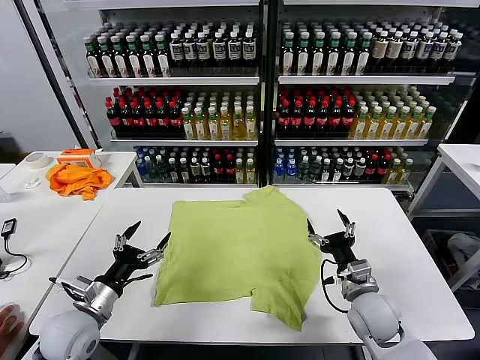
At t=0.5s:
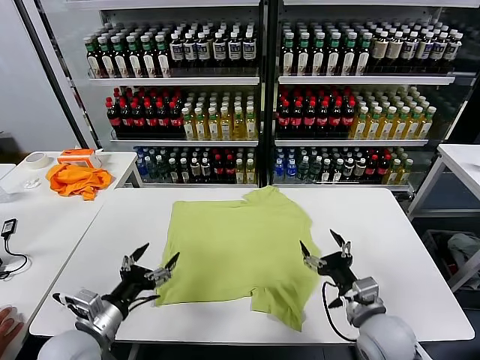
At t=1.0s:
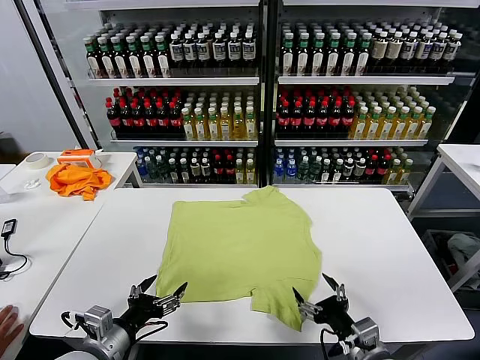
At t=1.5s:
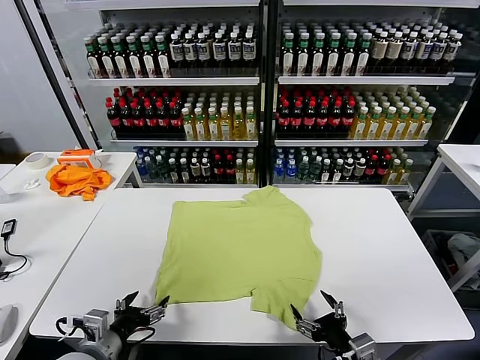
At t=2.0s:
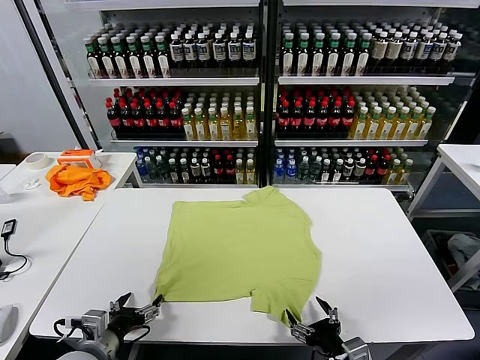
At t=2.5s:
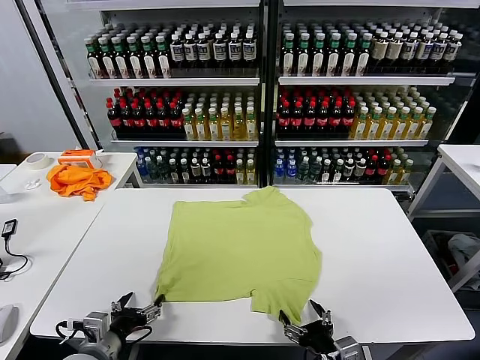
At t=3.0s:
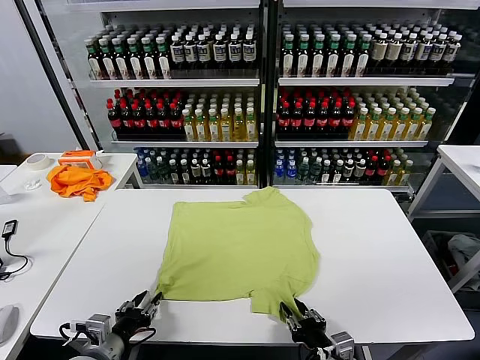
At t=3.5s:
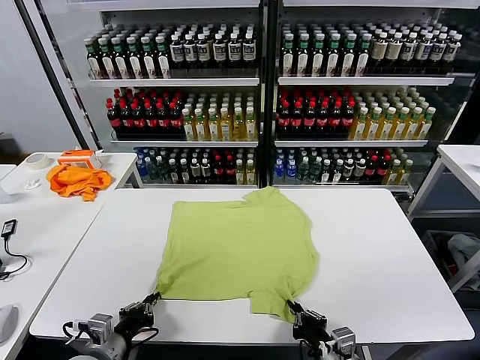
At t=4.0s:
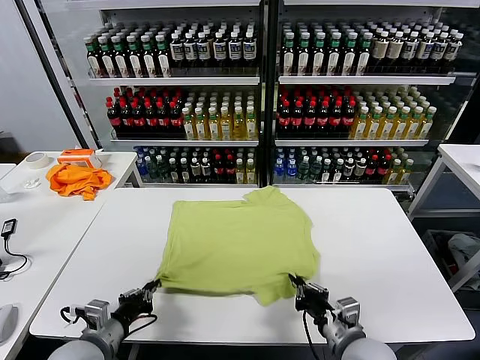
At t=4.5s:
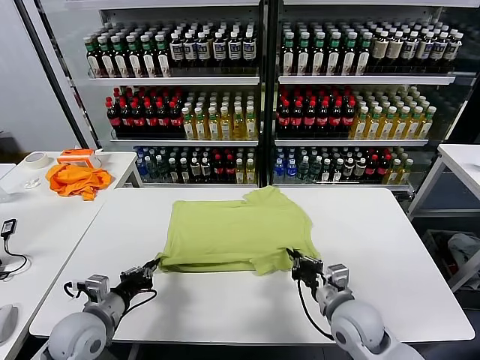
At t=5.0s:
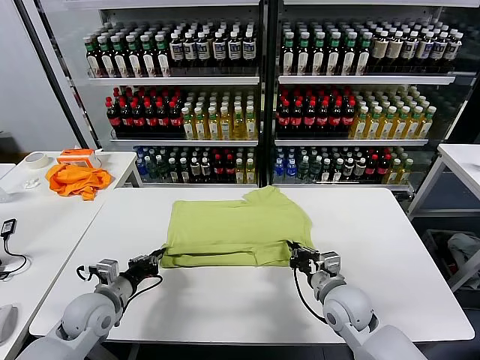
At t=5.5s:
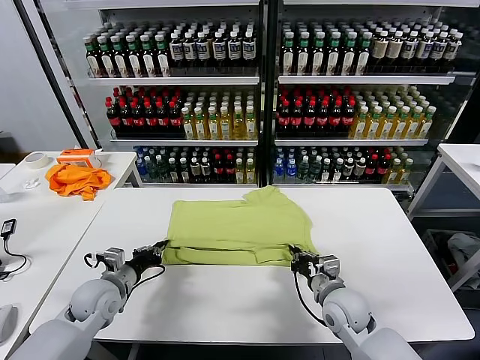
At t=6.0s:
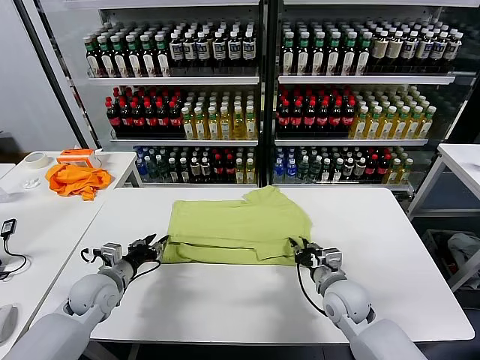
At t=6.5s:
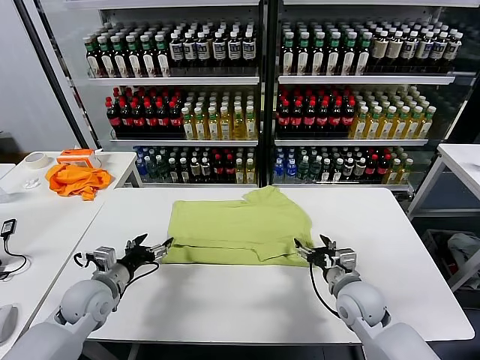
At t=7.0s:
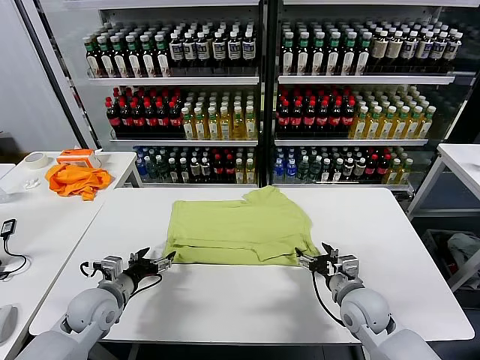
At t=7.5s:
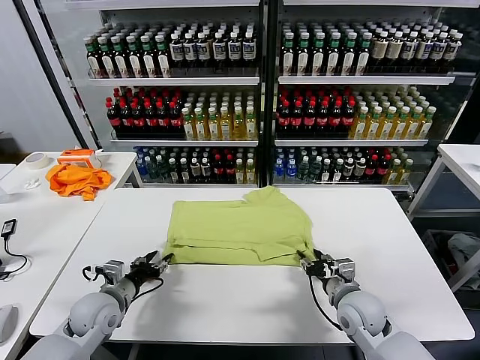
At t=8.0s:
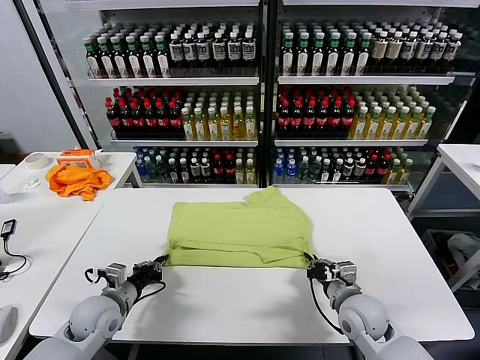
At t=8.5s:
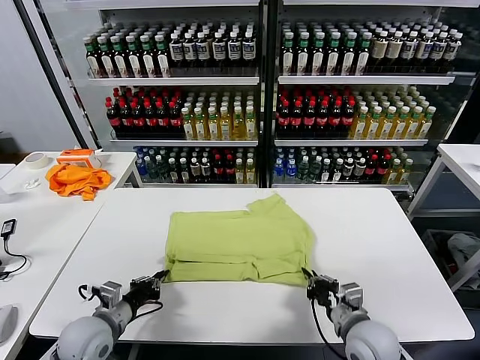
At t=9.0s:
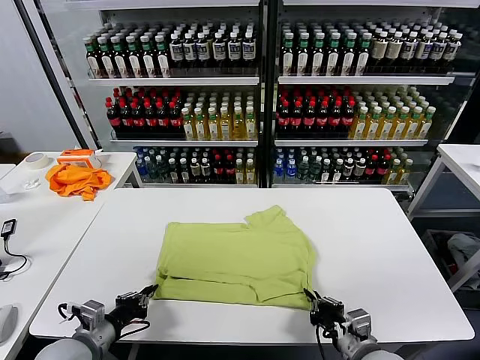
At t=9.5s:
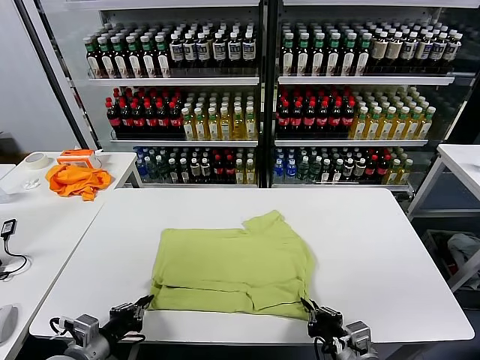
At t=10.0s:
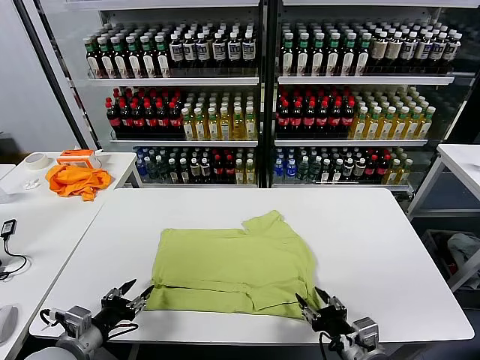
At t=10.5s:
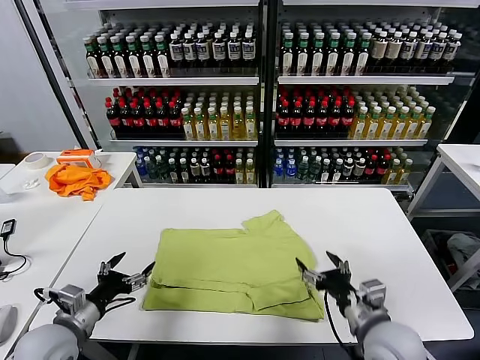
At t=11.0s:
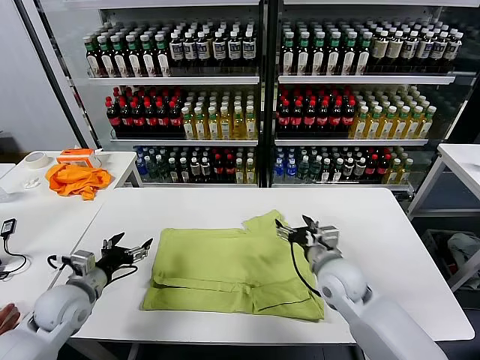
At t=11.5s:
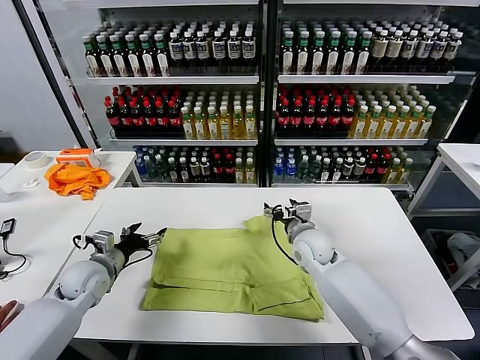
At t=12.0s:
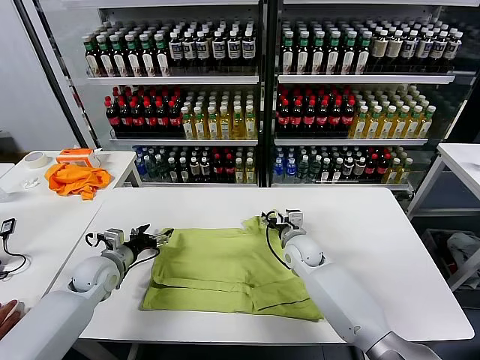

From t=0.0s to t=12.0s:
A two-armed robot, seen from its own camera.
Task of the whole recording: fold and organize the clothes.
Step, from t=0.0s to t=3.0s: use both grippers simultaneously to clamp the lower edge of the clothing fabric.
Step, from t=3.5s to t=6.0s: use both grippers to drag the lower edge of the fabric forward and fold it over the upper edge.
Step, from t=6.5s to t=9.5s: Drag the clothes downward with both gripper.
From t=2.0s to t=4.0s: The right gripper shifts approximately 10 cm forward, and closes. Meanwhile the left gripper closes its fingers.
From t=4.0s to t=6.0s: Both grippers move forward, approximately 15 cm. The right gripper opens. The left gripper opens its fingers.
From t=6.0s to t=8.0s: The right gripper closes its fingers. Meanwhile the left gripper moves about 5 cm, and closes its fingers.
From t=8.0s to t=10.0s: The two grippers go some 15 cm backward. The right gripper opens; the left gripper opens.
From t=10.0s to t=12.0s: Both grippers travel together forward, some 25 cm. The left gripper opens its fingers.

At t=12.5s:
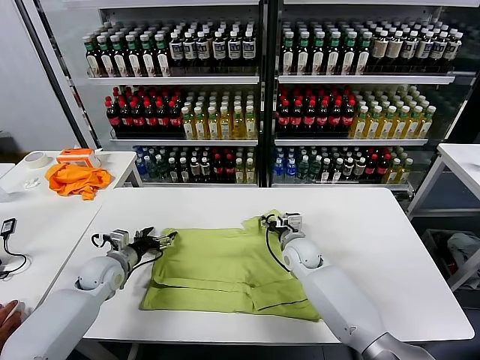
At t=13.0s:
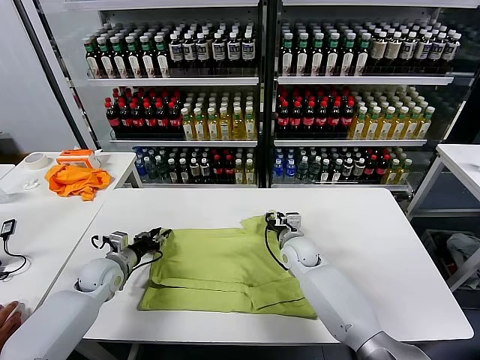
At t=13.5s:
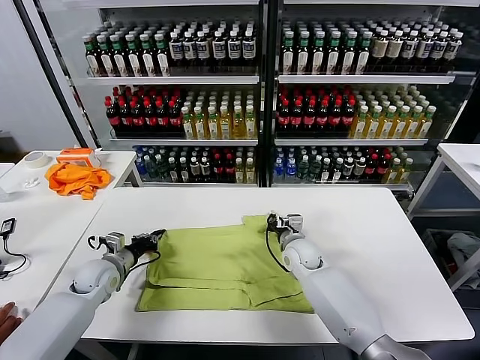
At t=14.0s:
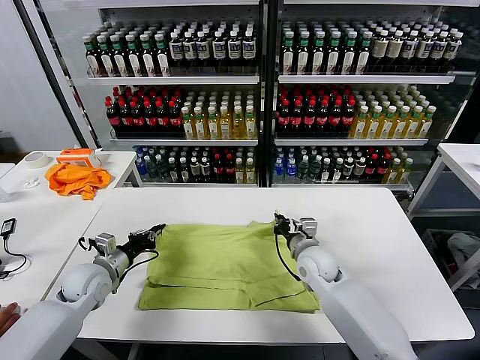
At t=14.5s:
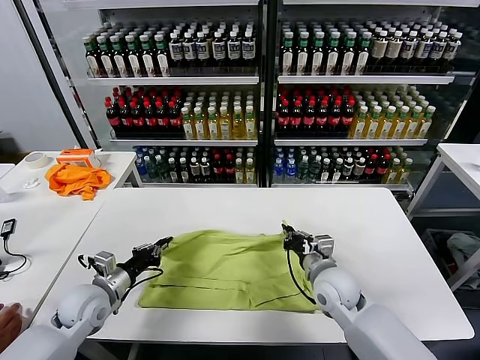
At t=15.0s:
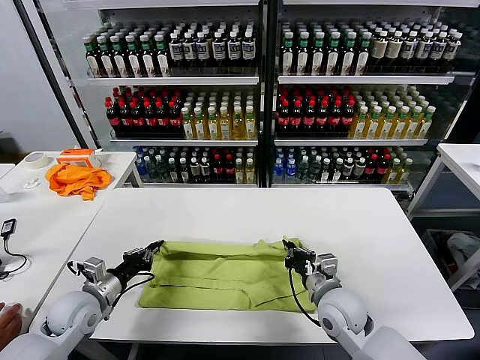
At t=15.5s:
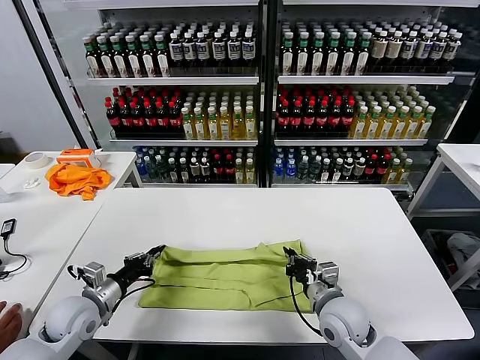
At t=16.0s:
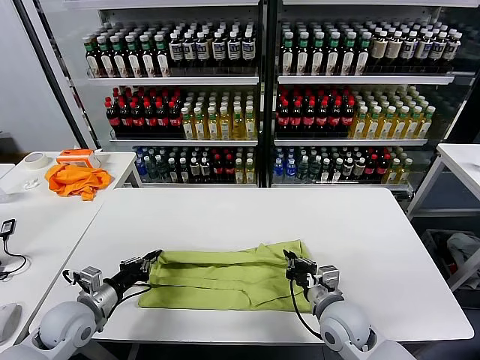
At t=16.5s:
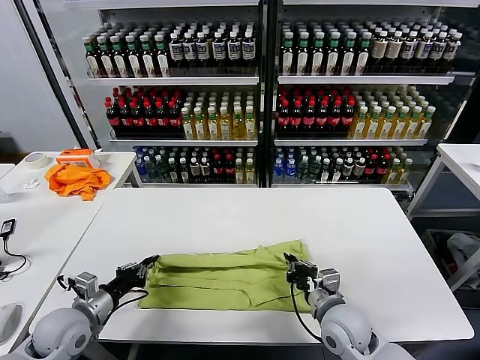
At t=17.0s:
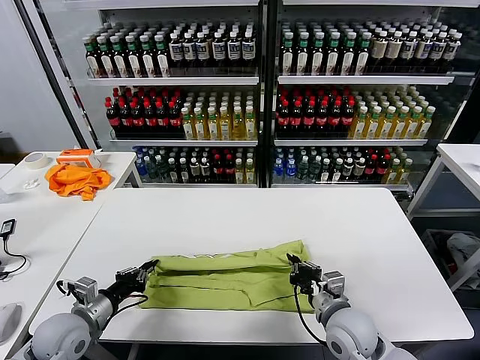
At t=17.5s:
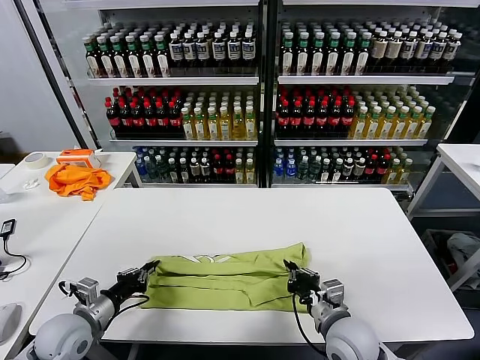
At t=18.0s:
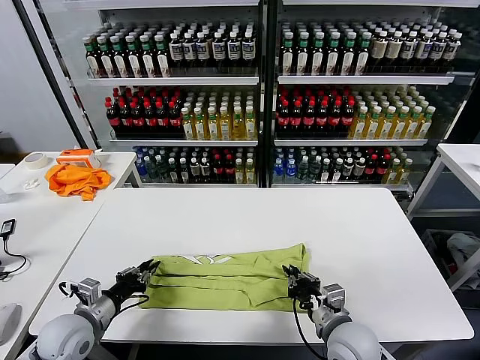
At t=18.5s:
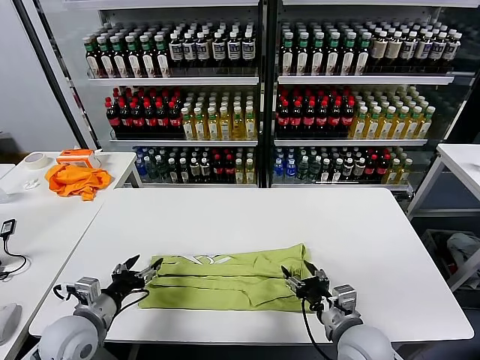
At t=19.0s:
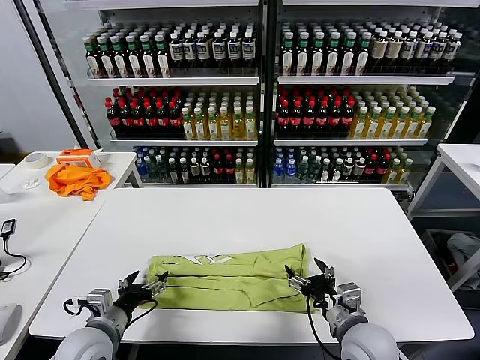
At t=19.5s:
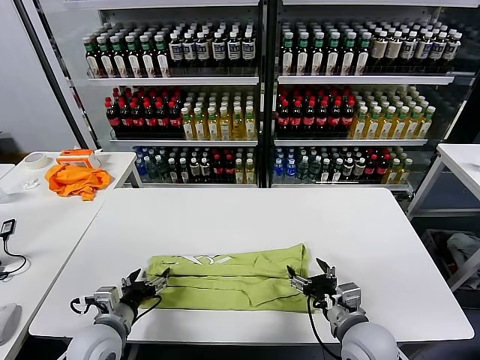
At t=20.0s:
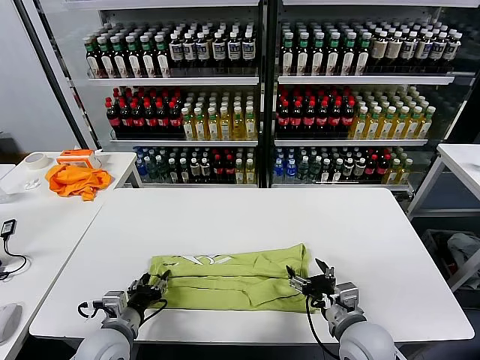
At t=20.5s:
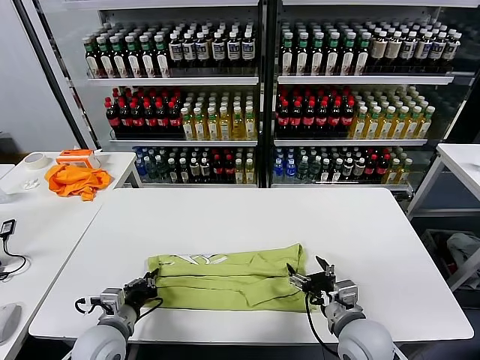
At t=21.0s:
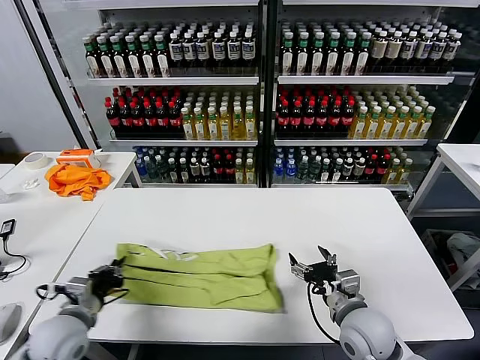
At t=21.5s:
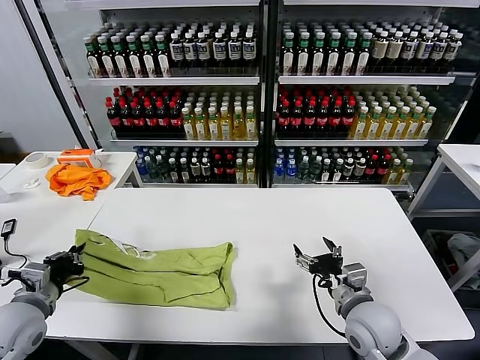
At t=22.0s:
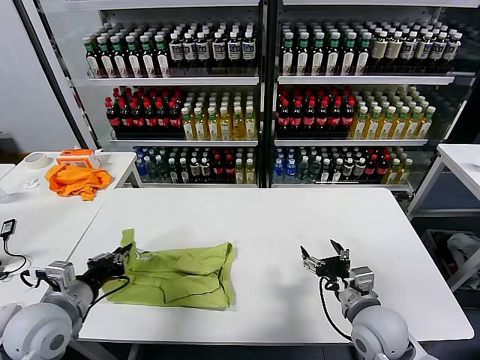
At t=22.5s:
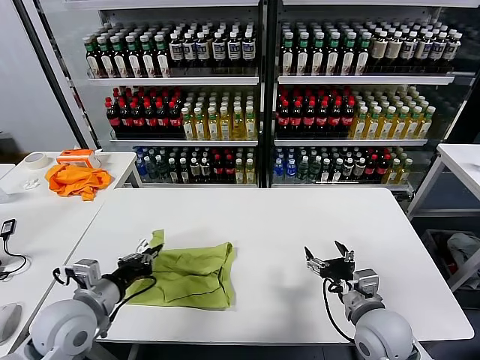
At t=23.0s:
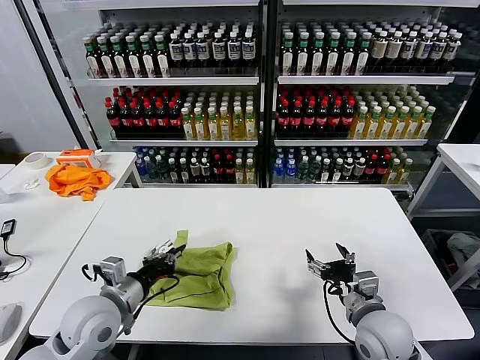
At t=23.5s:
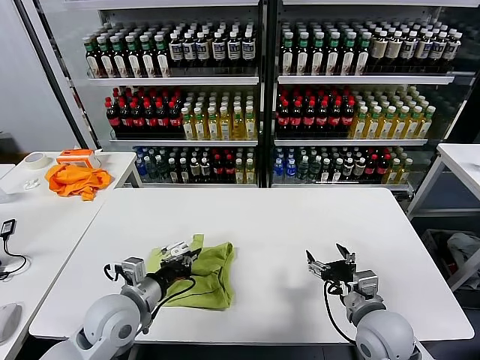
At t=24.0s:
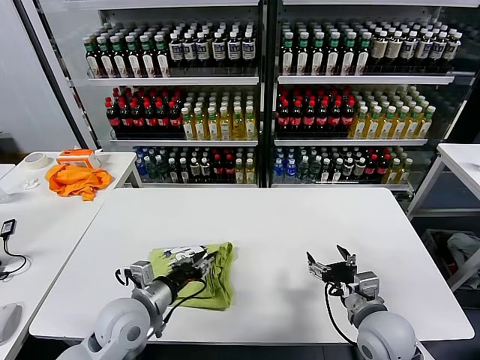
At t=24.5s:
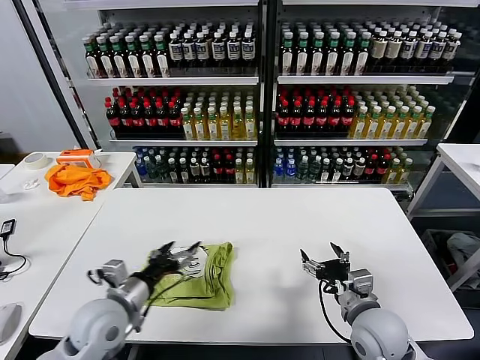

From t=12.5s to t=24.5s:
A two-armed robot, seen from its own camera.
Task of the whole recording: fold and organize the clothes.
Step, from t=13.5s to t=18.0s: use both grippers to drag the upper edge of the fabric backward and fold it over the lower edge.
Step, from t=18.5s to t=20.5s: use the left gripper to clamp the left edge of the fabric.
Step, from t=21.0s to t=24.0s: use the left gripper to drag the left edge of the fabric to the left and folds it over the right edge.
From t=12.5s to t=14.5s: The grippers both shift backward by some 10 cm. The right gripper closes up. Meanwhile the left gripper closes its fingers.
From t=14.5s to t=16.5s: Both grippers move backward, approximately 5 cm.
From t=16.5s to t=18.5s: The left gripper opens its fingers; the right gripper heads backward, covering approximately 5 cm, and opens up.
From t=18.5s to t=20.5s: The left gripper goes roughly 5 cm to the right, and closes up.
From t=20.5s to t=22.5s: The left gripper is displaced upward by approximately 10 cm, and goes to the left and returns, approximately 15 cm each way.
From t=22.5s to t=24.5s: The left gripper shifts roughly 5 cm to the right, and opens.

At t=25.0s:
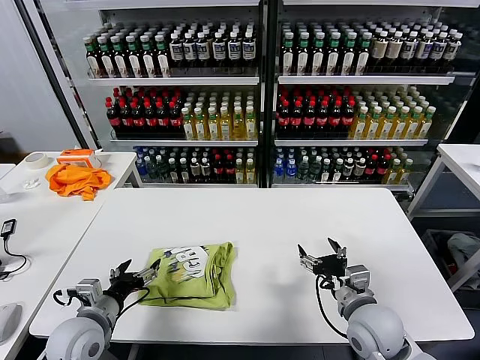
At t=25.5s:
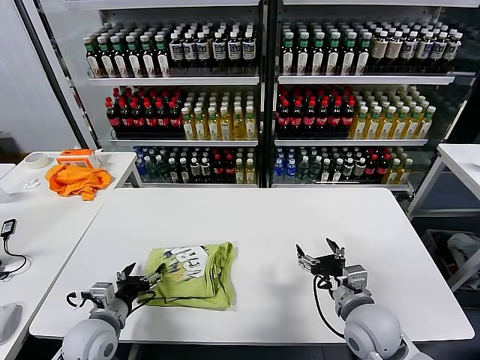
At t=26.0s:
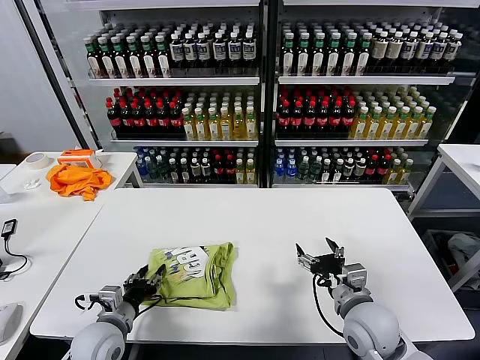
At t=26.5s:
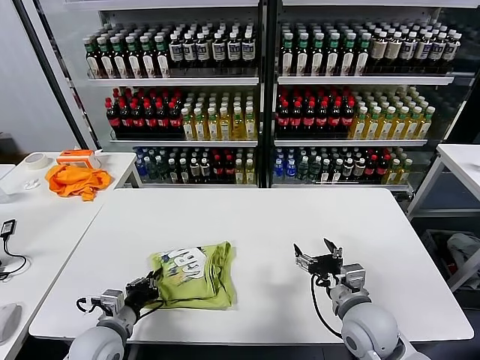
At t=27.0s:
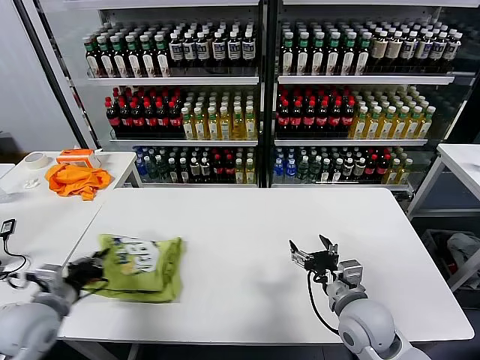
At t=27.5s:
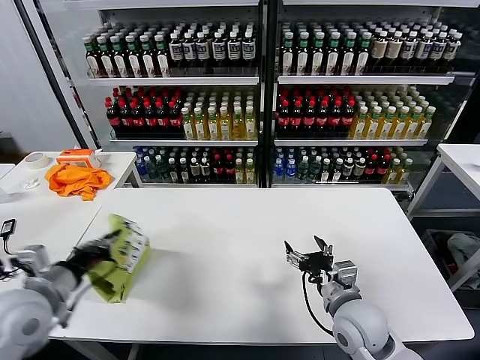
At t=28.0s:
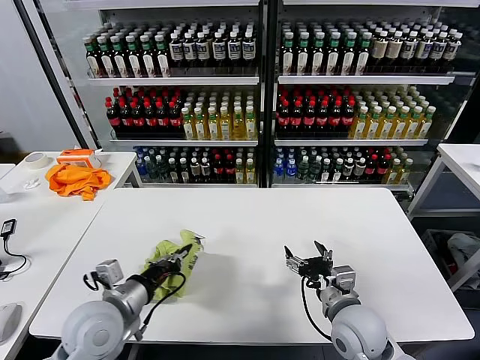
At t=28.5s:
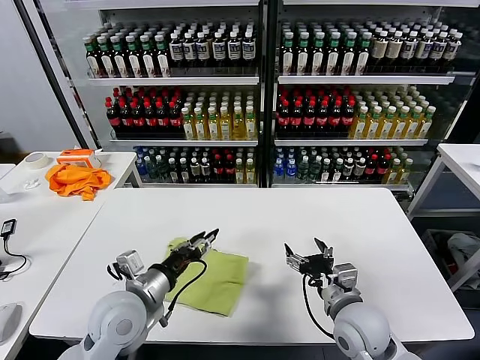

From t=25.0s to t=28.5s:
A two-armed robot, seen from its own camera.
Task of the whole recording: fold and organize the clothes.
Step, from t=25.0s to t=28.0s: Flip the folded clothes over with left gripper.
From t=25.0s to t=27.0s: The left gripper is displaced to the left by about 5 cm, and closes its fingers.
From t=27.0s to t=28.5s: The left gripper heads to the right, covering about 15 cm, and opens.
